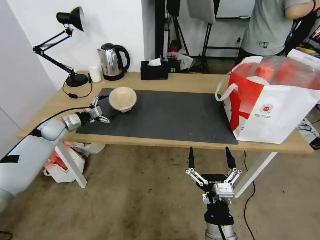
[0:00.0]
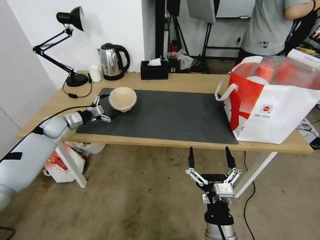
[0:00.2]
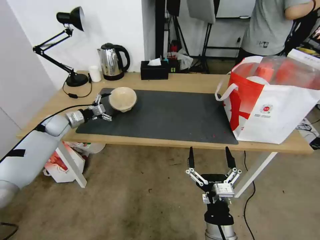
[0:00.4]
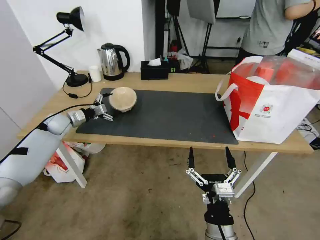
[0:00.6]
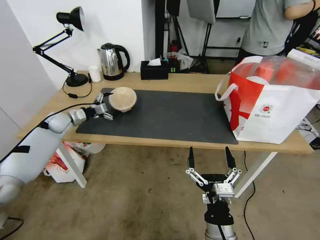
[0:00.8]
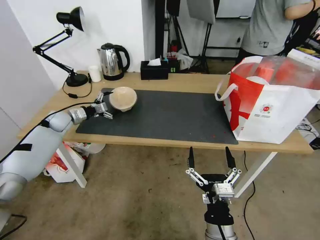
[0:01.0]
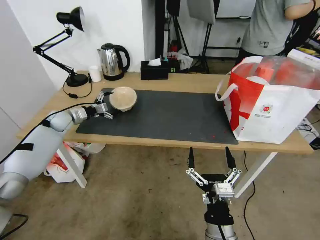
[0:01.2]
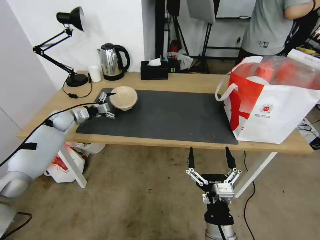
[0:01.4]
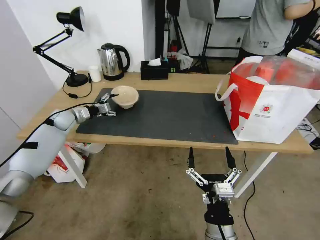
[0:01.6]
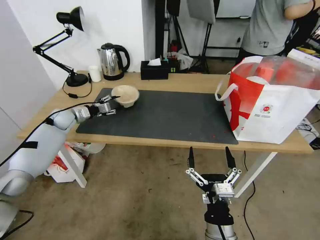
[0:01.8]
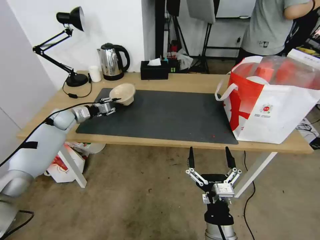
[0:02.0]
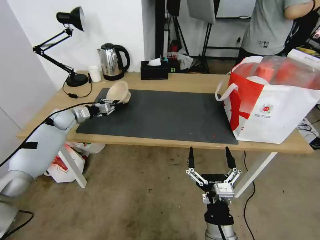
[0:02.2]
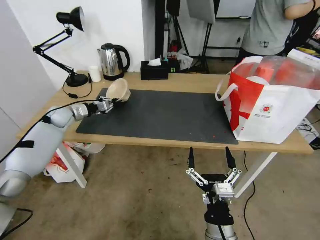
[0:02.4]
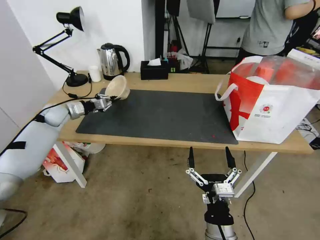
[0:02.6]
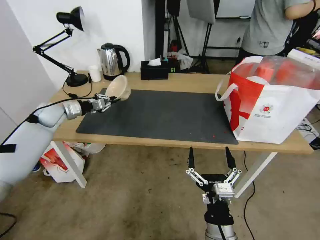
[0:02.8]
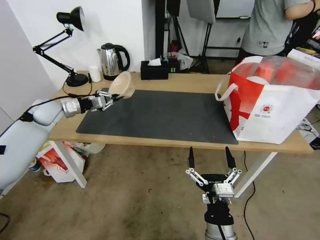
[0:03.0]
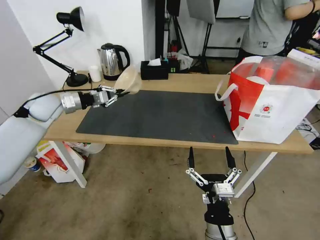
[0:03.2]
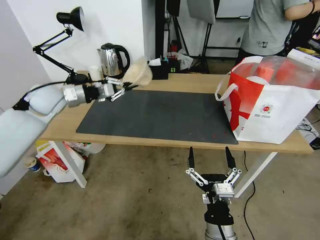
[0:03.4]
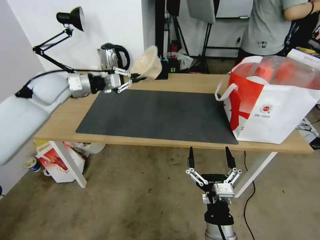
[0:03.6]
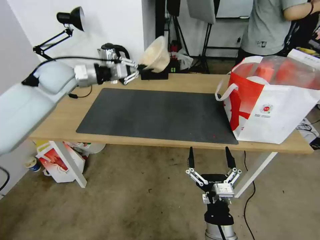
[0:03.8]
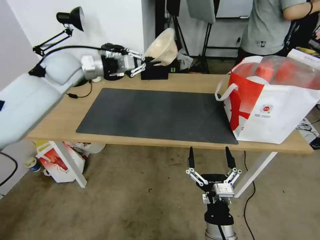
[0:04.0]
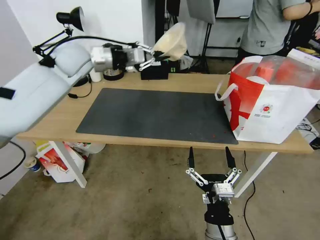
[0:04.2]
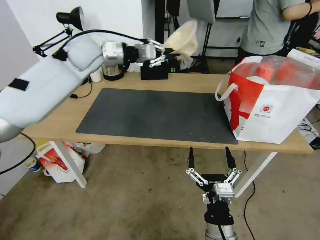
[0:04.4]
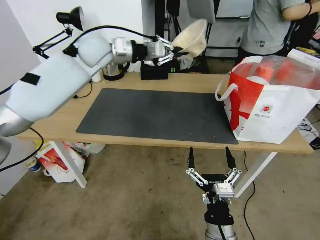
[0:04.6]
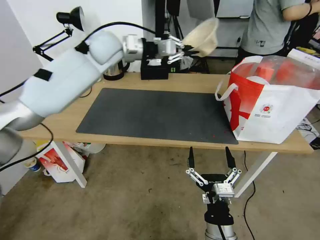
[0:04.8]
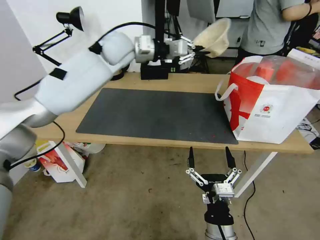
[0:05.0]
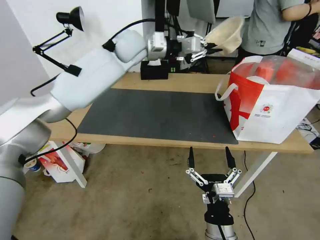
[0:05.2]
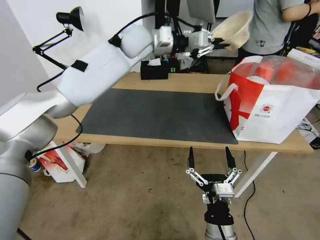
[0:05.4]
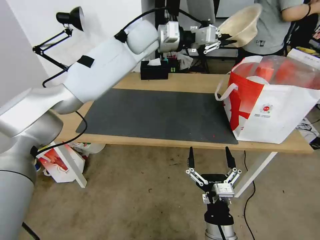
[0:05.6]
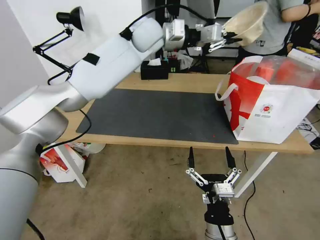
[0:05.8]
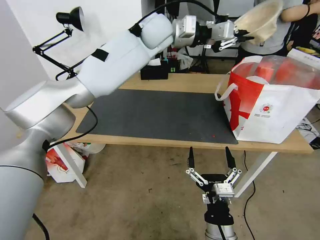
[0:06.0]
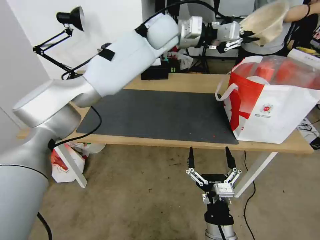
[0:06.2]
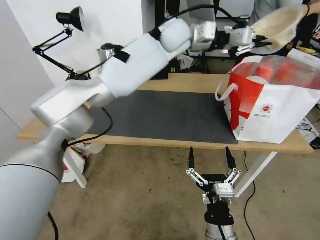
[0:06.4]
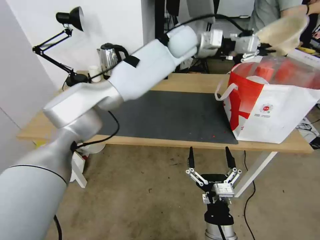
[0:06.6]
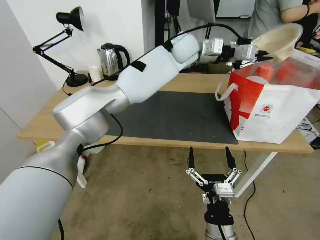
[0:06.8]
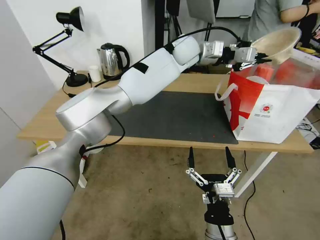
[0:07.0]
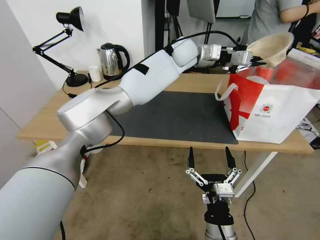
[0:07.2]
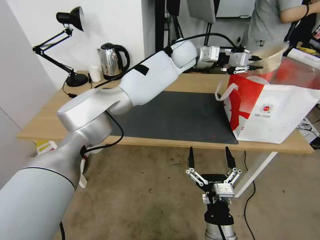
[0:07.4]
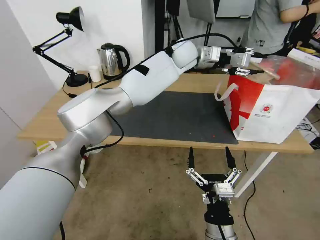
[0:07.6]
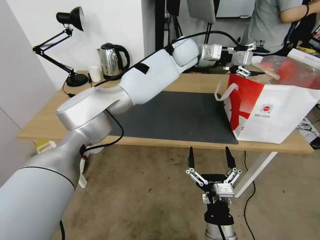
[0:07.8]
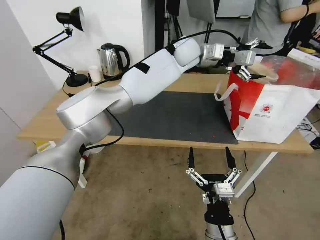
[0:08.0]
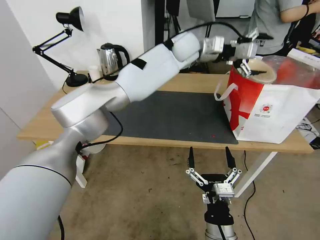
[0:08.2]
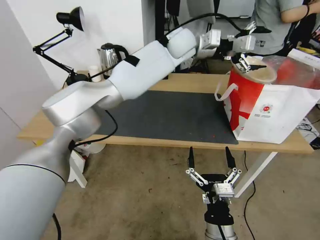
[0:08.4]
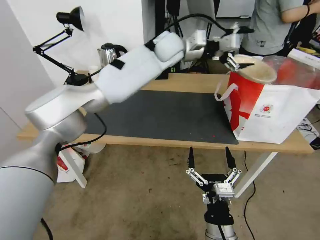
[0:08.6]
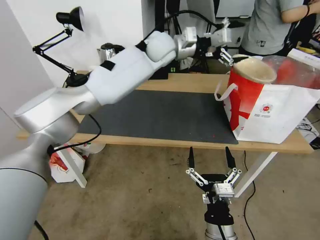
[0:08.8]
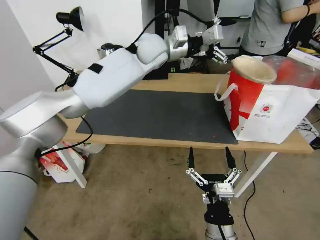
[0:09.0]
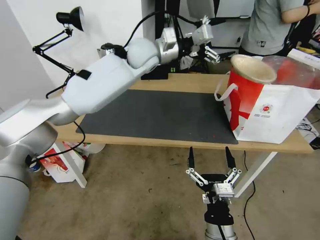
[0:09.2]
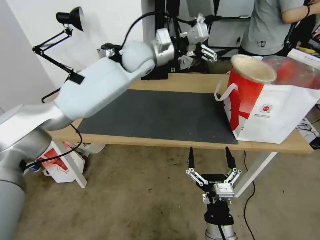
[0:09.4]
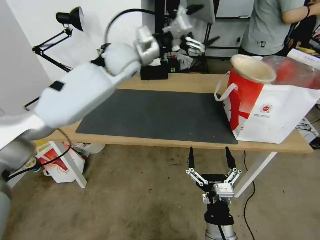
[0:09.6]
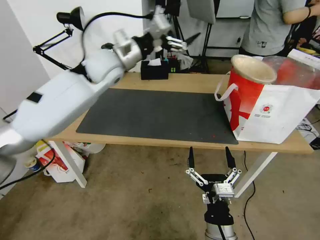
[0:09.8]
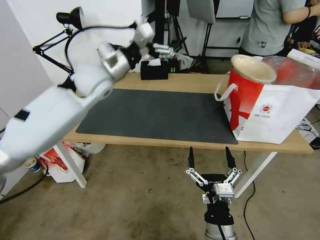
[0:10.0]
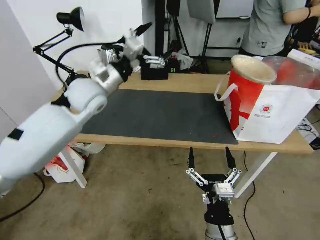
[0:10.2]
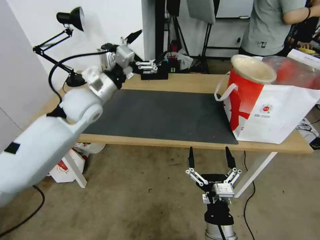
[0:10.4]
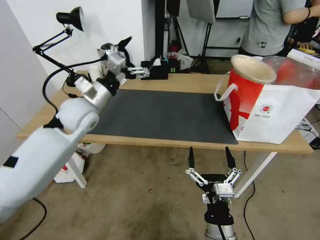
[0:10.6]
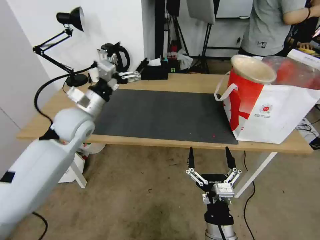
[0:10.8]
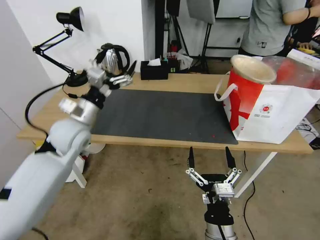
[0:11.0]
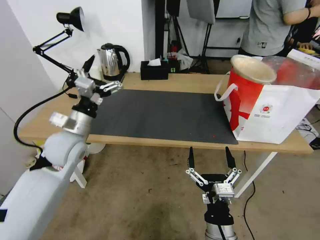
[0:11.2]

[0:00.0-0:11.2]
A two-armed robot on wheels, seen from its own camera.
Task of the whole recording: Pick up the trash from the table and place it into the takeout bag.
0:00.0 to 0:01.6: The left gripper changes place by roughly 5 cm.
0:01.6 to 0:03.2: The left gripper heads upward and backward, covering some 15 cm, and closes.
0:03.2 to 0:04.8: The left gripper is displaced to the right and upward by roughly 30 cm.
0:04.8 to 0:06.4: The left gripper shifts about 20 cm to the right.
0:06.4 to 0:08.0: The left gripper travels downward and to the right by about 10 cm, and opens up.
0:08.0 to 0:09.6: The left gripper travels to the left and backward by some 20 cm.
0:09.6 to 0:11.2: The left gripper shifts about 30 cm backward, downward and to the left.

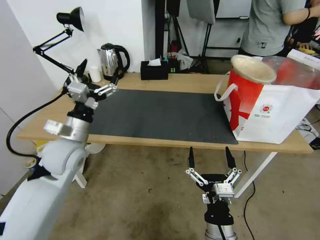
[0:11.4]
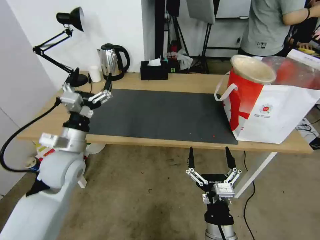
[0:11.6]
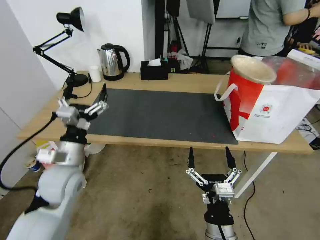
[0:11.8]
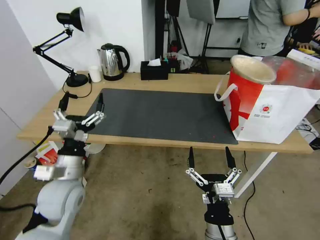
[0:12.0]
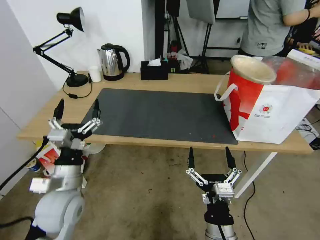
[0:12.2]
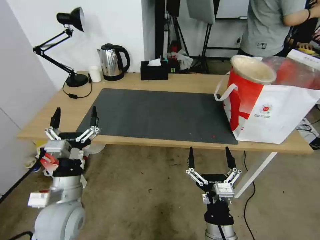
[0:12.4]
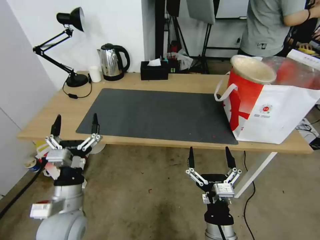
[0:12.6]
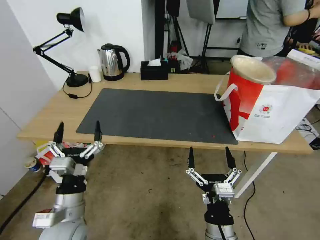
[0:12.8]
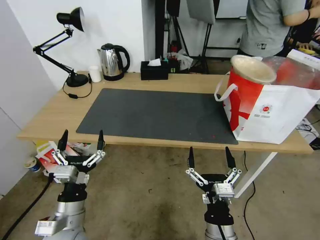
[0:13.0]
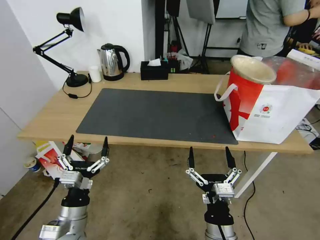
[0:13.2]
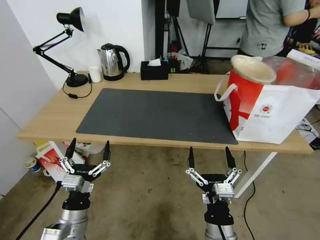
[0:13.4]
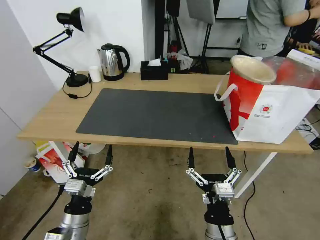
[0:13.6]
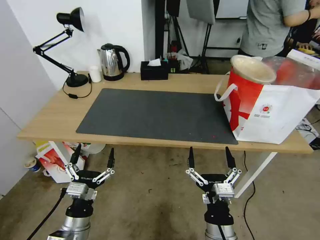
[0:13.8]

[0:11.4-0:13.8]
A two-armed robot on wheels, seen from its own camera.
Task of the whole recording: Pick up the trash from the table and place it into the takeout bag.
0:11.4 to 0:12.6: The left gripper heads backward and downward, covering some 15 cm.
0:12.6 to 0:13.8: The left gripper heads downward, covering roughly 10 cm.
